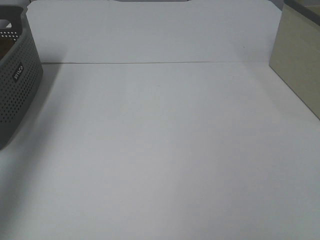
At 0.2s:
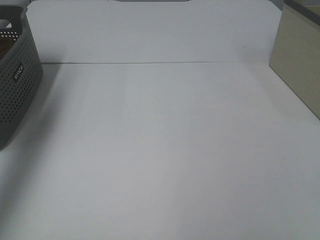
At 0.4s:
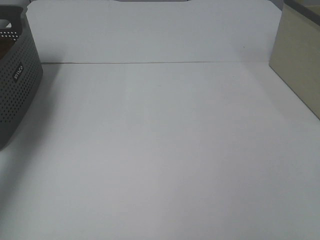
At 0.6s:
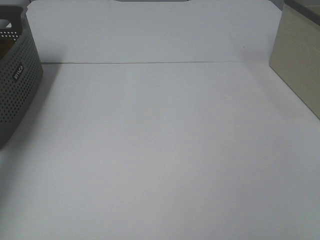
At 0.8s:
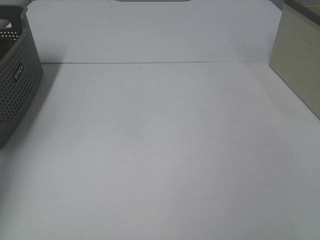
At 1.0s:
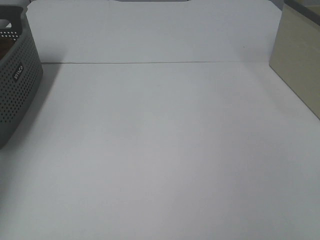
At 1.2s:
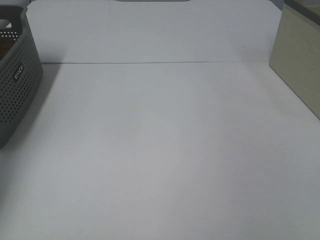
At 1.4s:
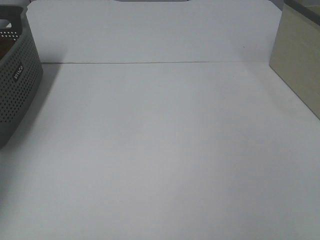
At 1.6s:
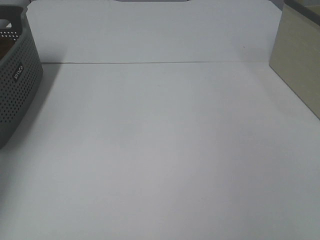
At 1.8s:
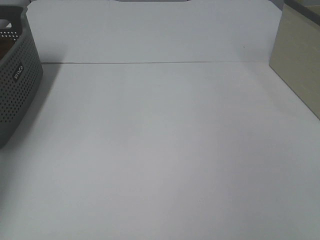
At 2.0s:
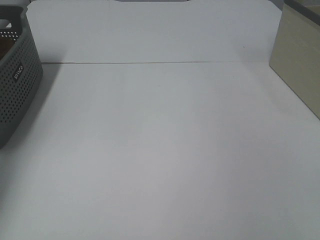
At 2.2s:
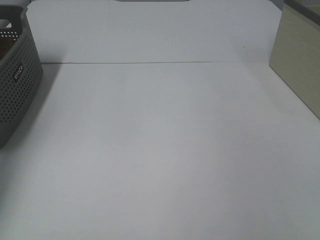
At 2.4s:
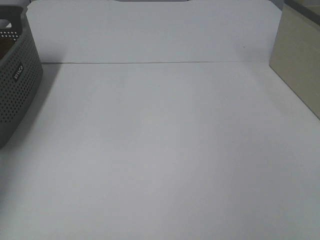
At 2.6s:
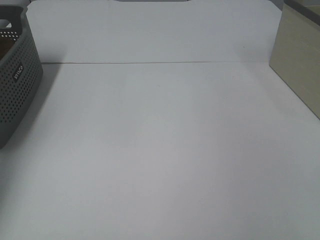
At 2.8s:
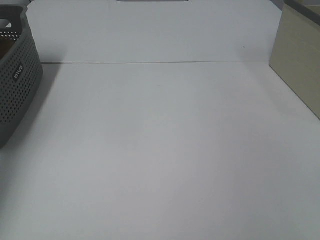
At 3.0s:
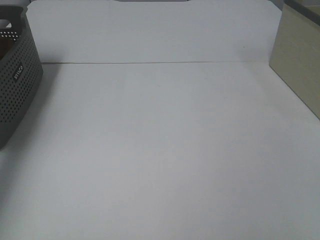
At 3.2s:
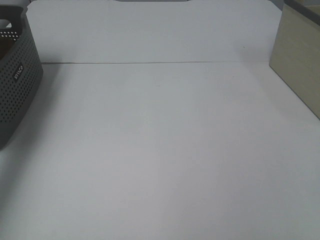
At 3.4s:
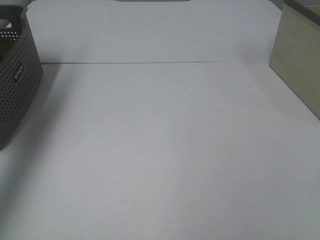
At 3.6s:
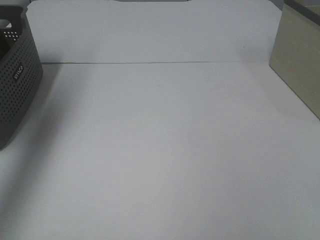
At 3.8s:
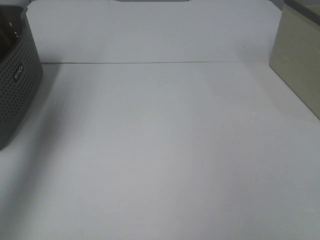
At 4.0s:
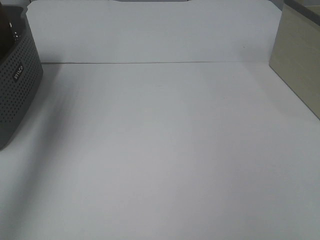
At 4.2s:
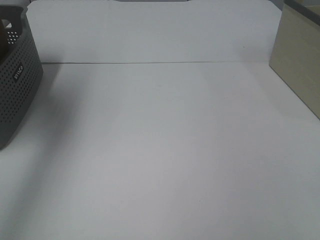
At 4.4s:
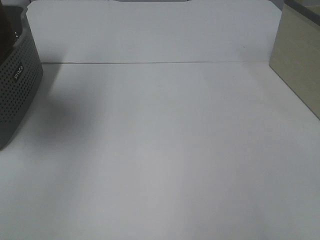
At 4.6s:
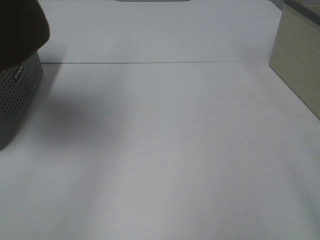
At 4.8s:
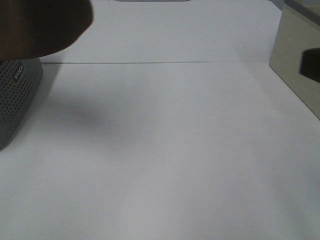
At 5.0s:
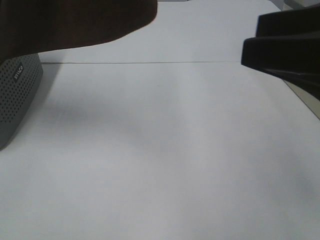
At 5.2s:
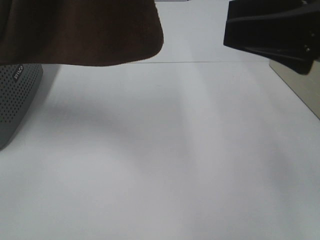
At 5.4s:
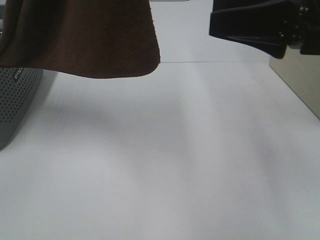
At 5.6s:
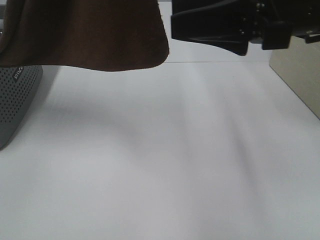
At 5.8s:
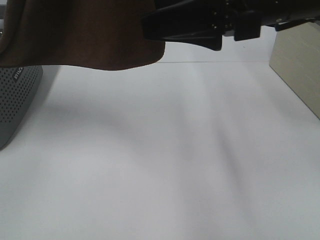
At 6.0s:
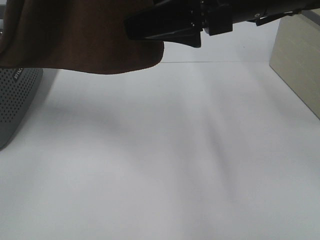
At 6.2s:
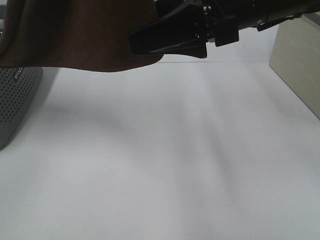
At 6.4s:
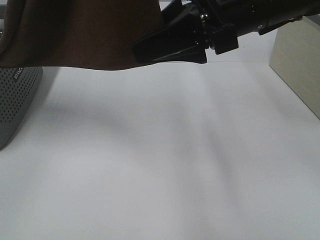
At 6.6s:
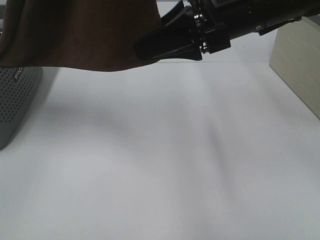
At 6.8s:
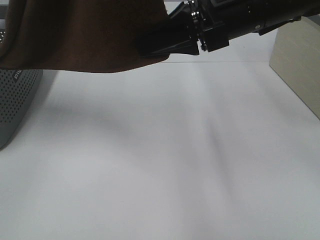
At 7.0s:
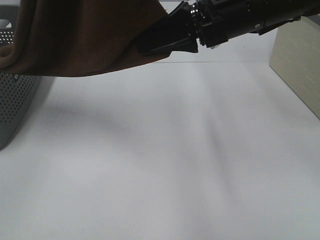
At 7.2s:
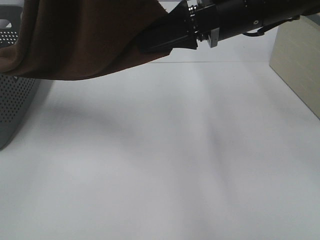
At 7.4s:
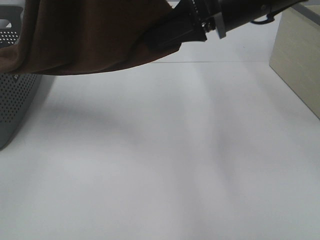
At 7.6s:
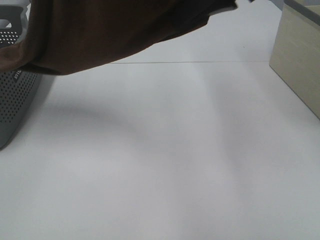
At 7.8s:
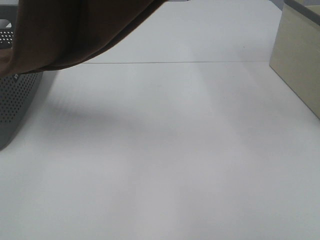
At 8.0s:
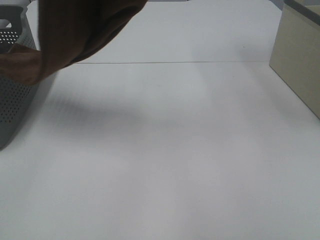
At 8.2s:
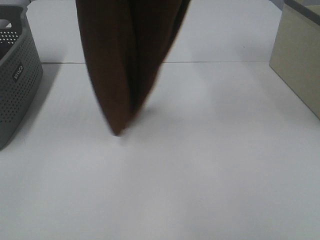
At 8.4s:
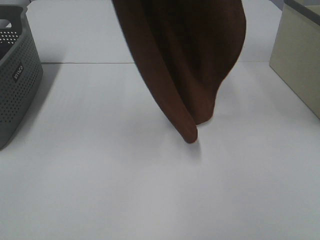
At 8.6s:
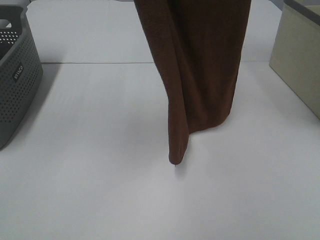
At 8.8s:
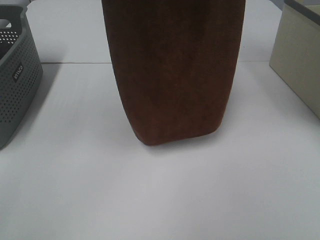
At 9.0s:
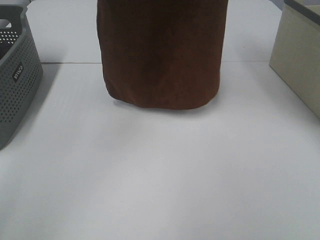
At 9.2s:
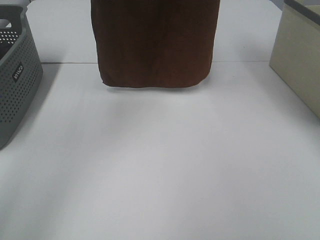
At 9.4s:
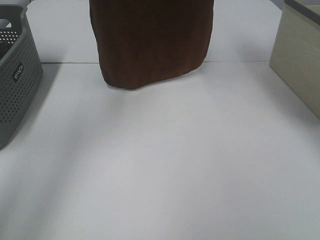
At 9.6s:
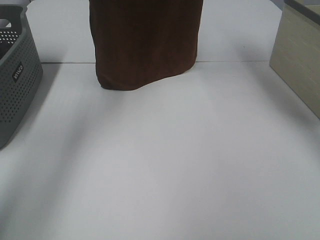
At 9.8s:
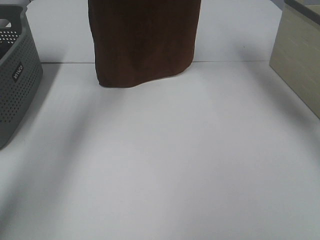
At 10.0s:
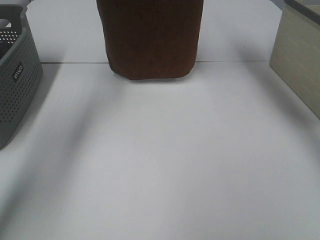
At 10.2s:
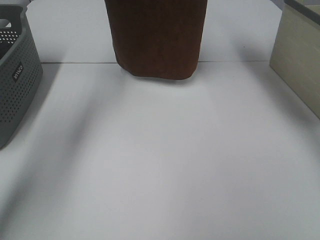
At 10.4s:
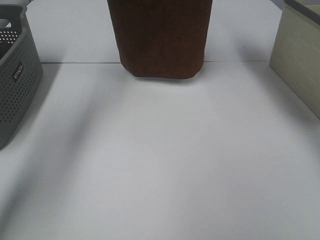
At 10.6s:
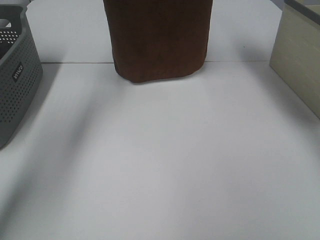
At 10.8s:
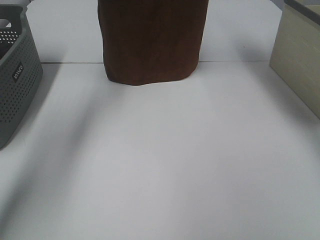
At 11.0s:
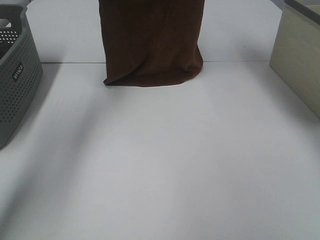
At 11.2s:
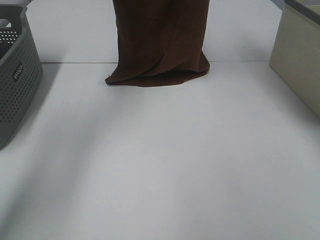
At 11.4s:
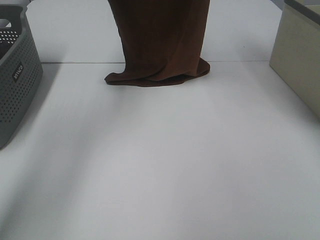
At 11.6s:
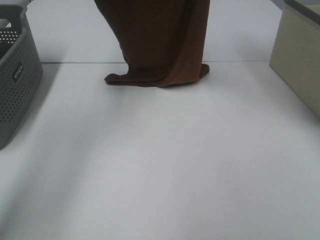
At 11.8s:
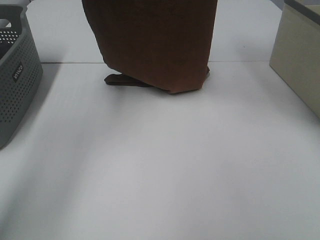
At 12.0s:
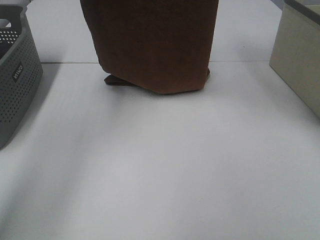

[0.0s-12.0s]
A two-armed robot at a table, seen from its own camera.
Task of the whole recording: Remove the towel and place it.
Step, 3.6s to 6.4s: Right hand: grab a corner of the brown towel and straighten it.
0.0s to 1.6s: The left gripper is displaced forward and downward by some 25 cm.
3.0s to 4.4s: The left gripper is displaced upward, backward and to the right by roughly 35 cm.
4.4s to 6.0s: The right gripper moves forward and to the left, some 30 cm; the left gripper goes approximately 15 cm to the right.
6.0s to 7.6s: The right gripper shifts approximately 5 cm upward, and closes.
7.6s to 9.0s: The left gripper heads forward, covering about 15 cm. Meanwhile the right gripper is displaced upward and forward by some 20 cm.
9.0s to 10.4s: The right gripper is displaced forward by some 10 cm; the left gripper goes approximately 15 cm forward.
10.4s to 12.0s: Both grippers move backward, roughly 10 cm.

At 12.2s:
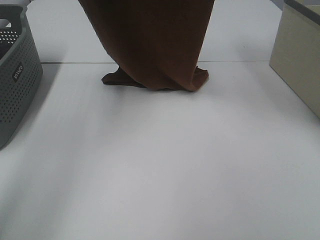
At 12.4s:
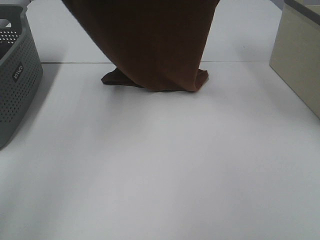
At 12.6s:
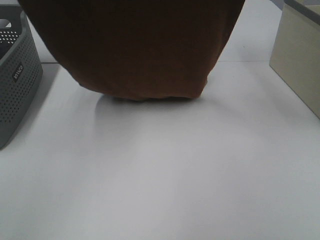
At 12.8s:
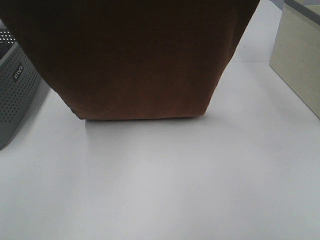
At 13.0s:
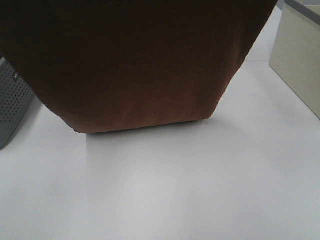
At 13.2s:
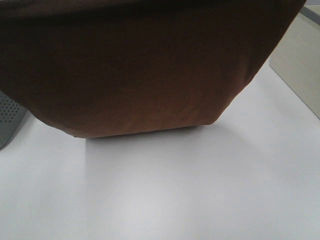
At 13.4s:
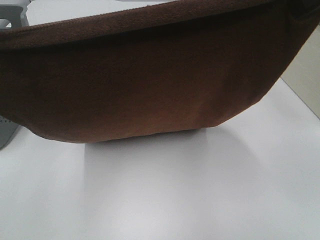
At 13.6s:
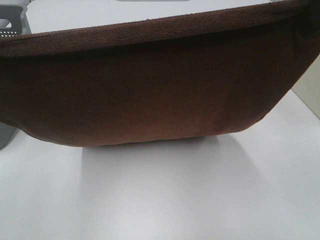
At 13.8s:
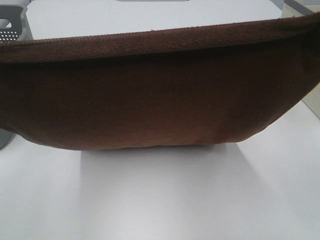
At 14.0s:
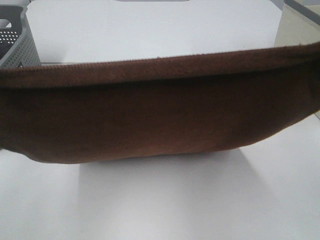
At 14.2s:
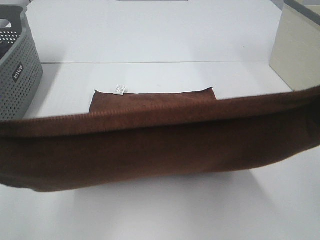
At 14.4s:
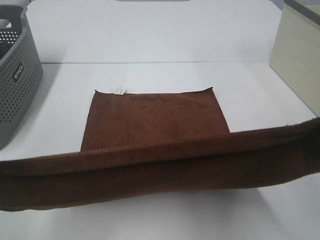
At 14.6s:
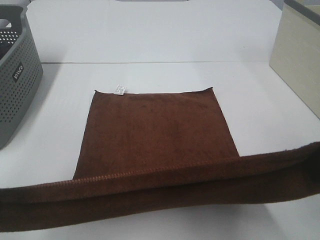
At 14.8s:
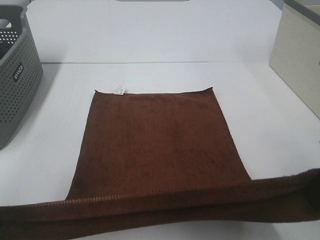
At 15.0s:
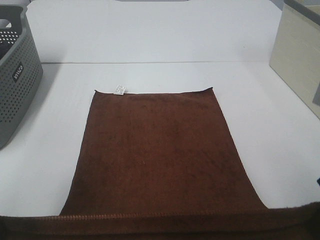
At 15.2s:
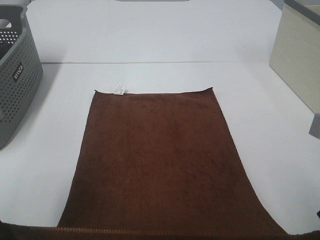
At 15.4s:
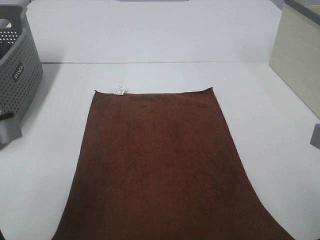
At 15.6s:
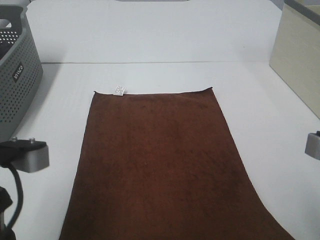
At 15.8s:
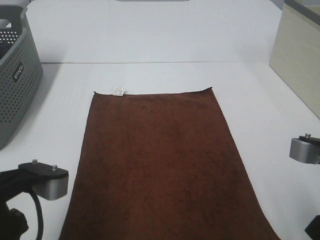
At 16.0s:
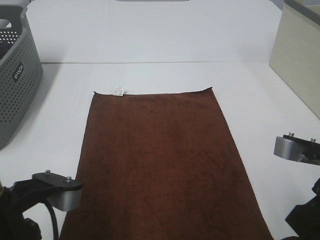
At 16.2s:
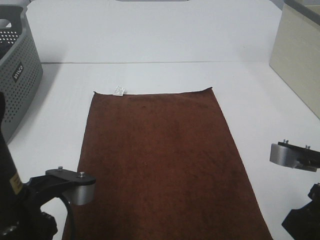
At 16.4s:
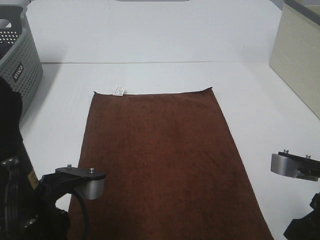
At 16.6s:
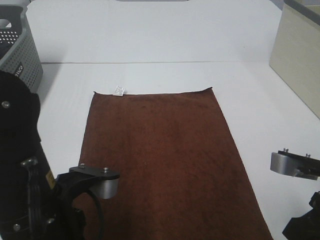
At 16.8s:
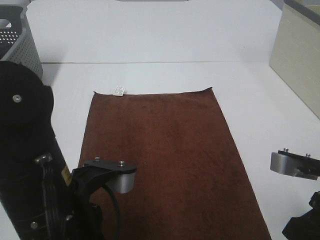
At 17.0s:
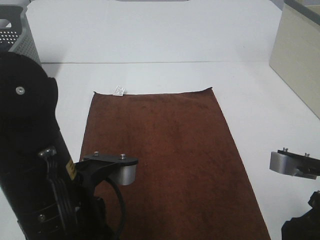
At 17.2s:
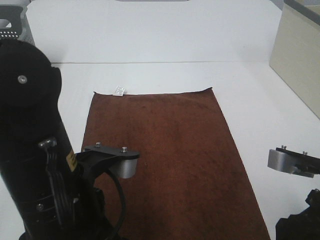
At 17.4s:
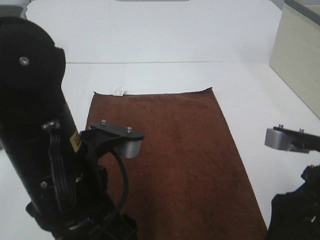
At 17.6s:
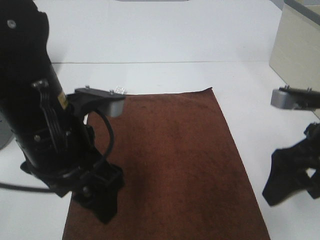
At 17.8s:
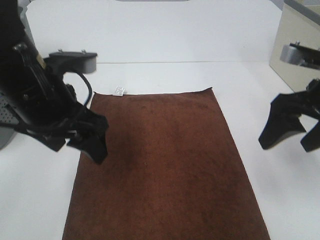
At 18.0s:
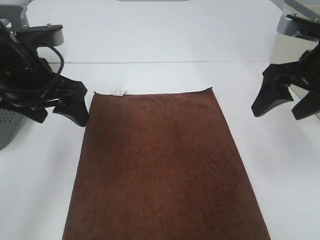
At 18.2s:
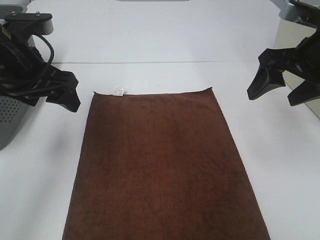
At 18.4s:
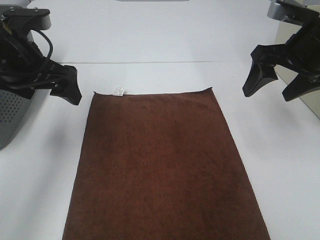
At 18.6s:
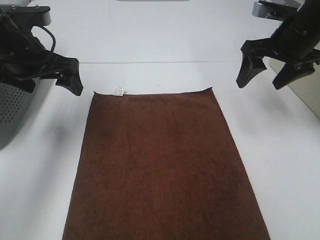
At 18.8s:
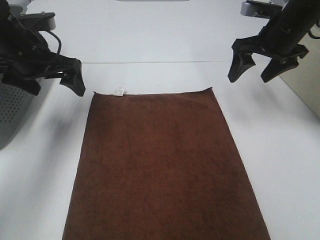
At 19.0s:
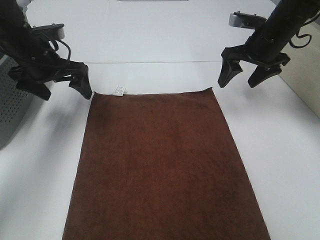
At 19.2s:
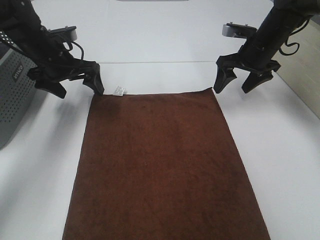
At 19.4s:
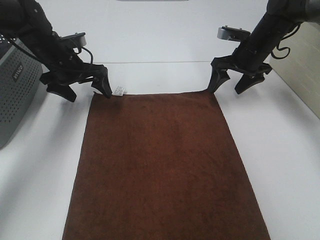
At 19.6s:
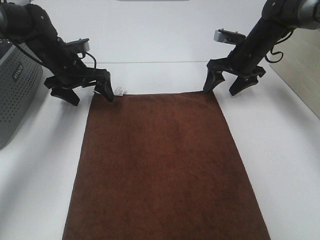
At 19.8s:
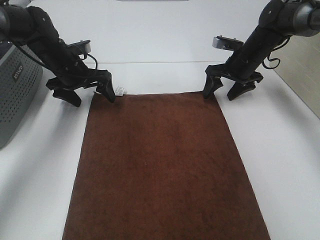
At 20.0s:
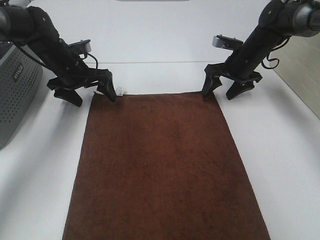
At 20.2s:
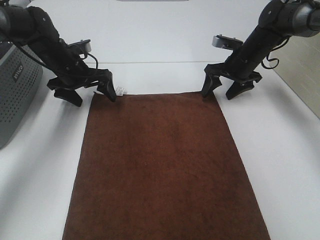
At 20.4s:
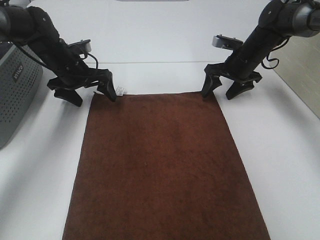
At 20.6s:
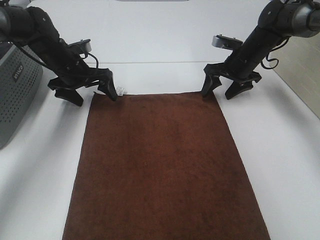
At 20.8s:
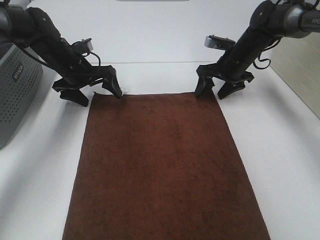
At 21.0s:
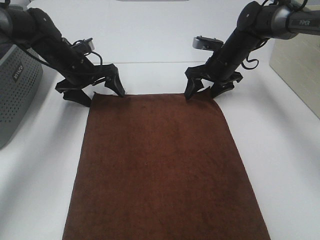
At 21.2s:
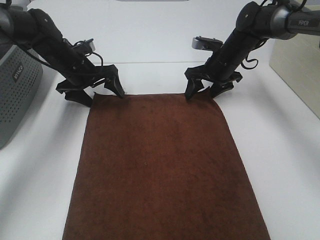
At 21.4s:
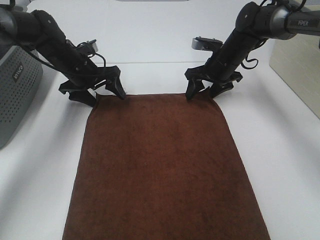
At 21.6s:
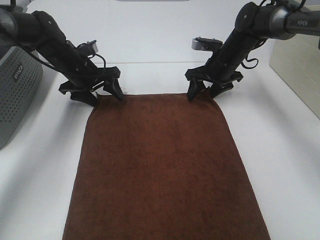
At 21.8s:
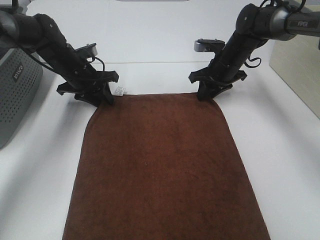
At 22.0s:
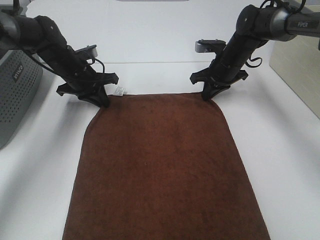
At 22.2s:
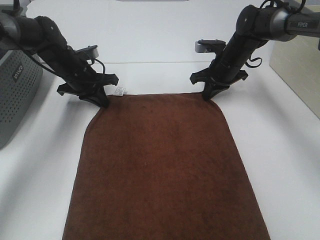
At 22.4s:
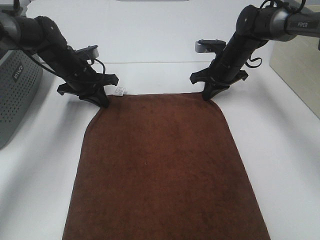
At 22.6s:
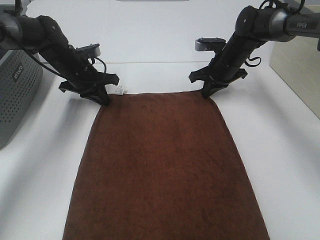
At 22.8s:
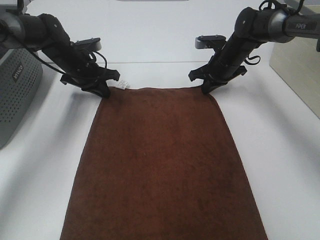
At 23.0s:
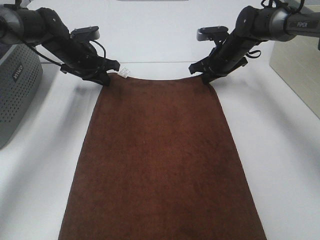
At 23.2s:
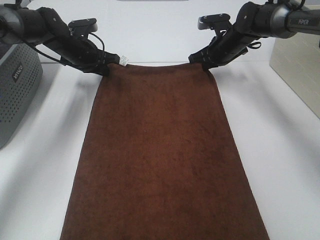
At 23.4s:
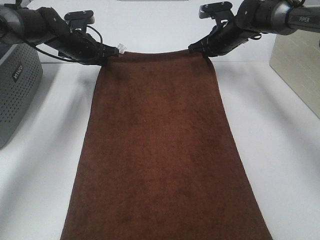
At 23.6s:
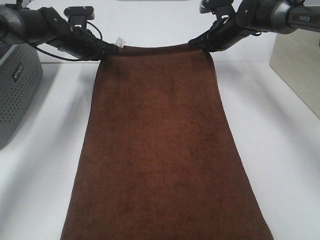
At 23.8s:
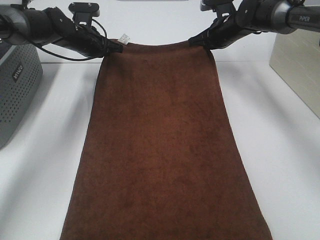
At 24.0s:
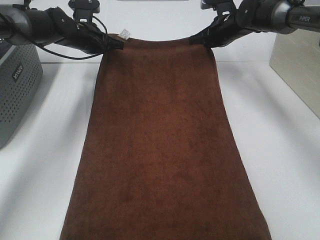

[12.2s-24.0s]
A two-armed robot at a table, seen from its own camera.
Task of the whole recording: Remove the towel and place it.
Step, 13.0s to 20.8s: Right hand:adjust the brown towel.
Step, 13.0s to 21.8s: Left hand:adjust the brown towel.
12.2s to 13.6s: The grippers both shift backward by approximately 20 cm.
13.6s to 15.2s: The right gripper shifts roughly 20 cm downward and backward; the left gripper is displaced downward by approximately 15 cm.
15.2s to 16.6s: The left gripper shifts roughly 15 cm to the right and downward; the right gripper shifts some 5 cm downward.
16.6s to 18.2s: The left gripper travels forward and to the left by roughly 20 cm, and opens. The right gripper shifts roughly 20 cm forward and upward, and opens up.
18.2s to 19.6s: Both grippers move forward and downward, approximately 20 cm.
19.6s to 21.0s: The right gripper changes place by roughly 5 cm.
21.0s to 22.6s: The left gripper closes up. Meanwhile the right gripper closes its fingers.
22.6s to 24.0s: The right gripper travels upward by about 5 cm; the left gripper is displaced forward by some 5 cm.
